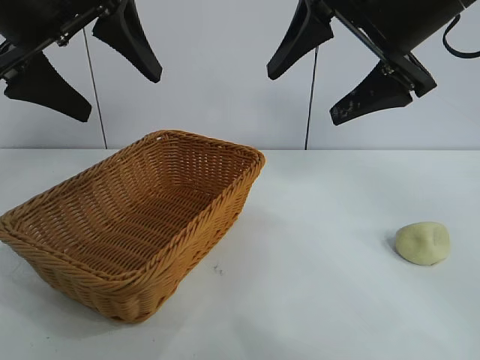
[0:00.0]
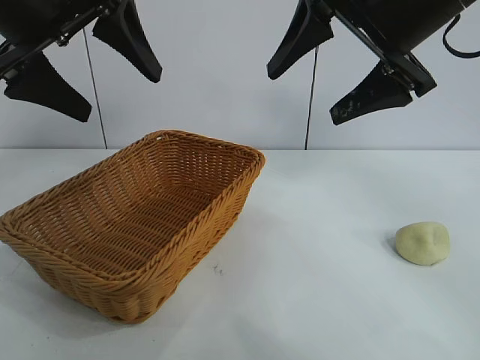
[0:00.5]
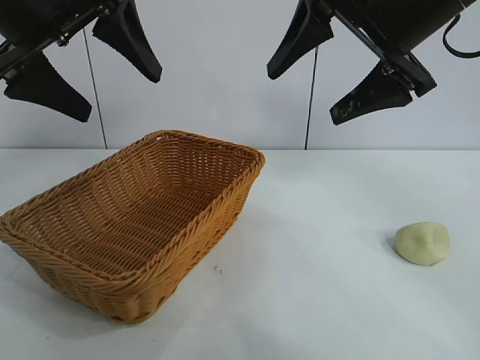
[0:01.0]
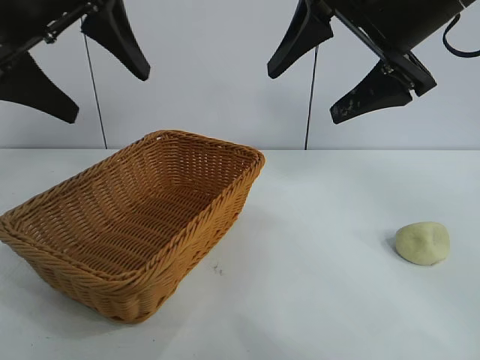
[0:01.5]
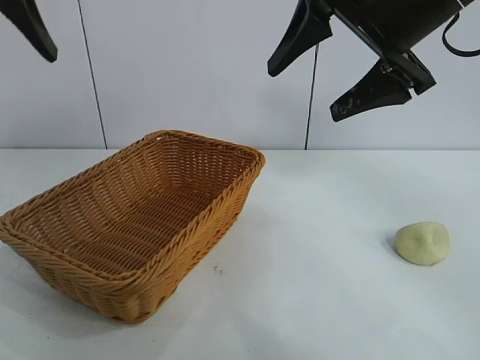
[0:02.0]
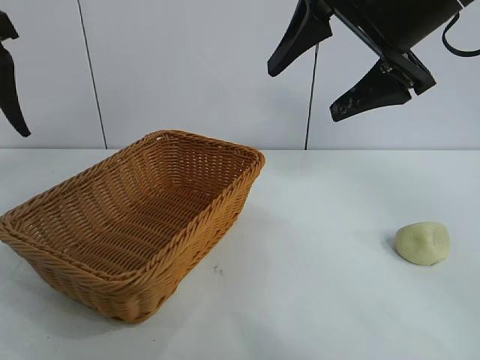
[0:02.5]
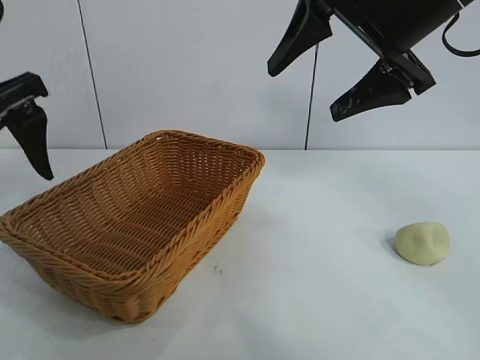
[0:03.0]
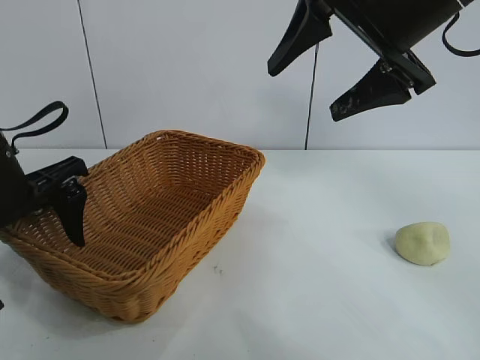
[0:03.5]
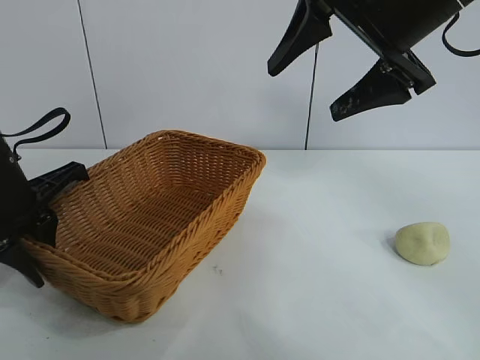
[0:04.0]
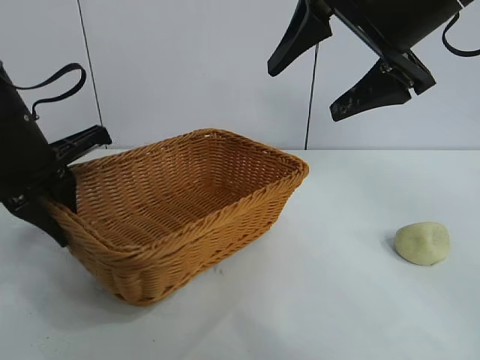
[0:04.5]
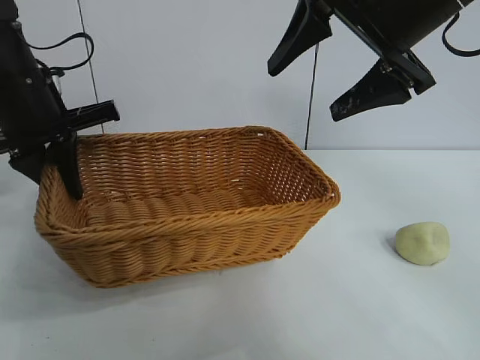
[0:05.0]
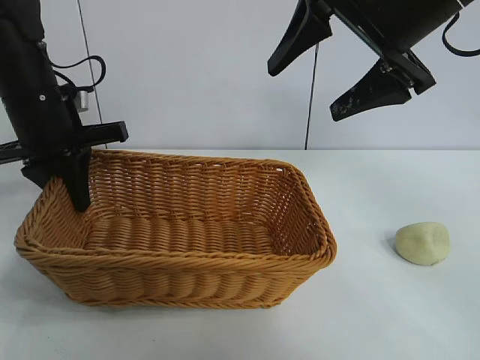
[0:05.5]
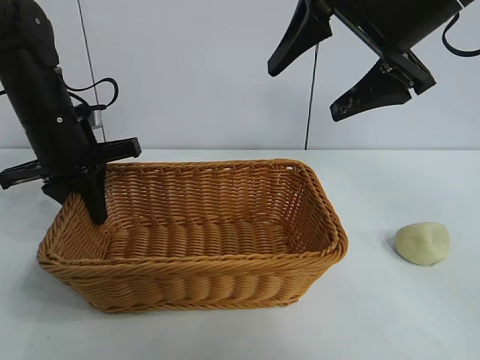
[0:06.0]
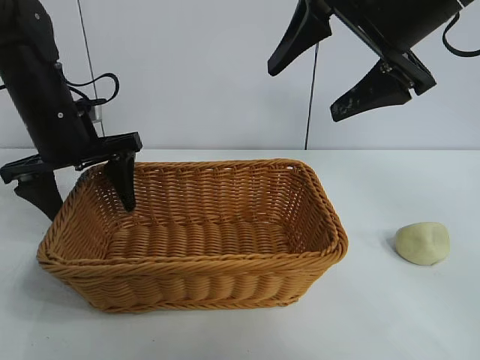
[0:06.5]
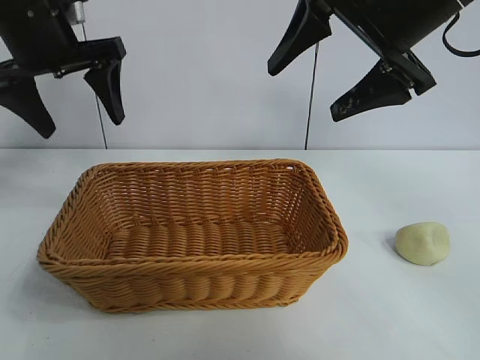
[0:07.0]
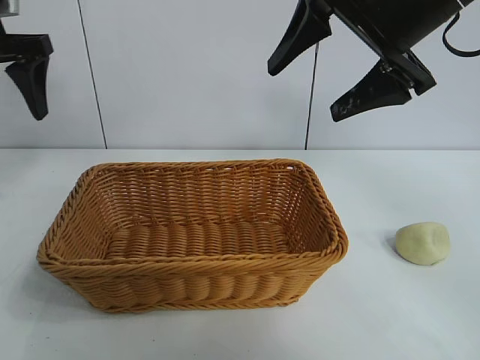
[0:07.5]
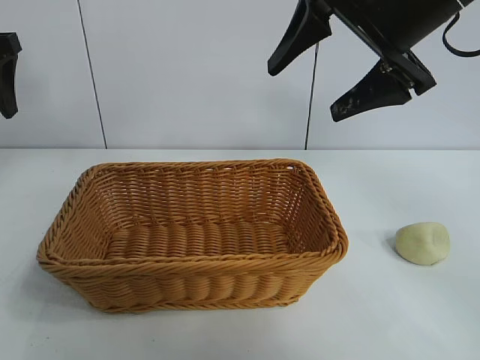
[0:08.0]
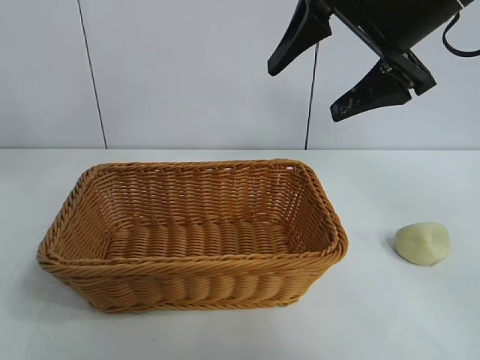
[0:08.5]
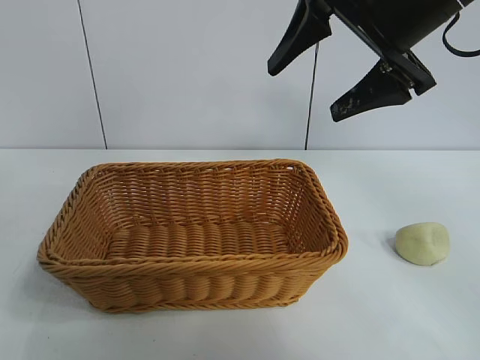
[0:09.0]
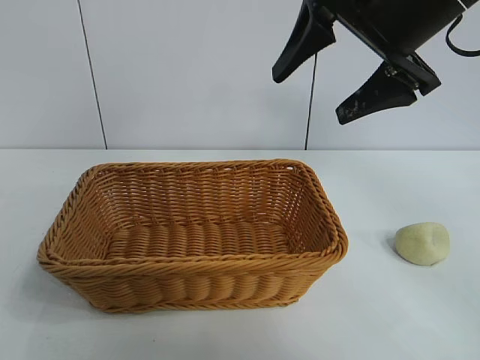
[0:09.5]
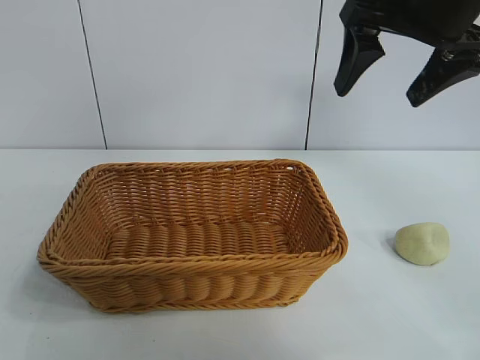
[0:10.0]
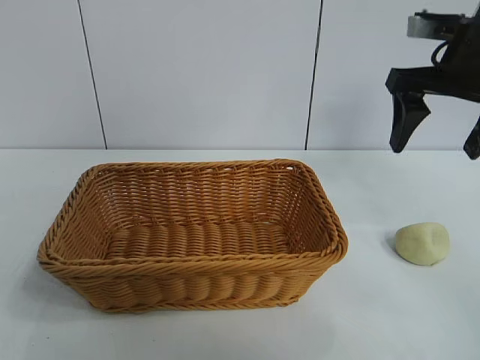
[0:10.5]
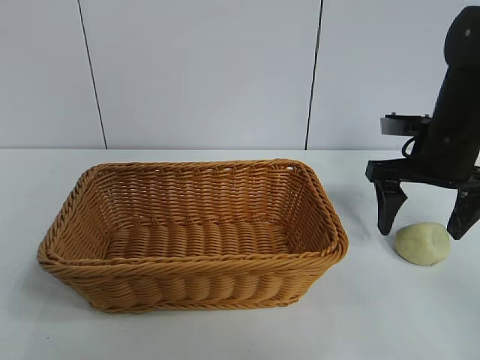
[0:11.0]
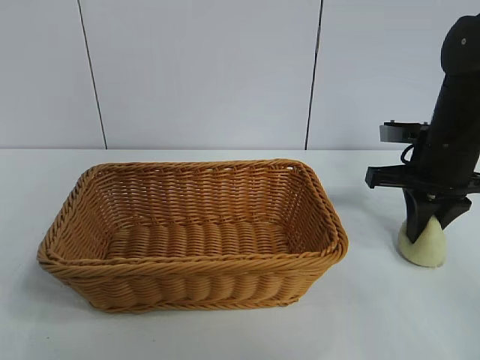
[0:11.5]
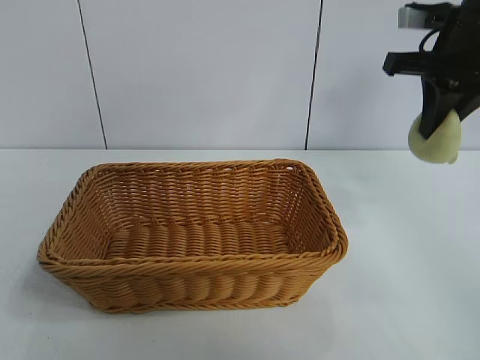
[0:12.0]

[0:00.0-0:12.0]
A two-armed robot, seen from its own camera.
Task of the whole recording: pick up the egg yolk pastry and put it into the basket.
Step, 0:01.5 to 0:04.0: Grasp the basket with left gripper.
Step, 0:04.5 to 0:06.0: Place the basket in the center of view with left gripper.
Step, 0:06.5 to 0:11.0: Grasp egg yolk pastry with right gripper.

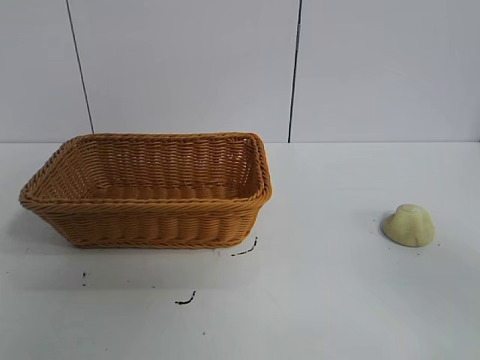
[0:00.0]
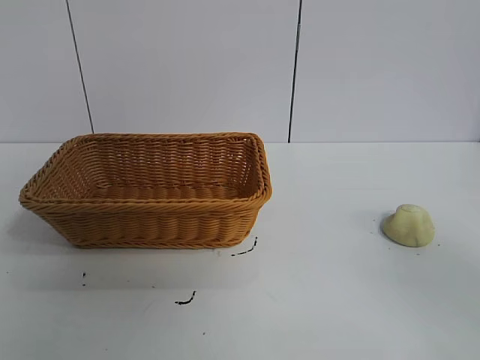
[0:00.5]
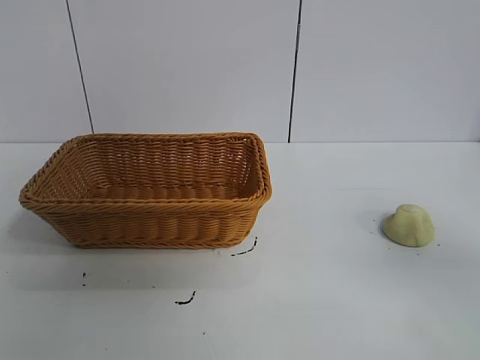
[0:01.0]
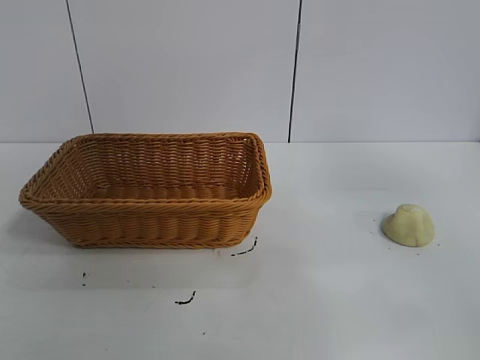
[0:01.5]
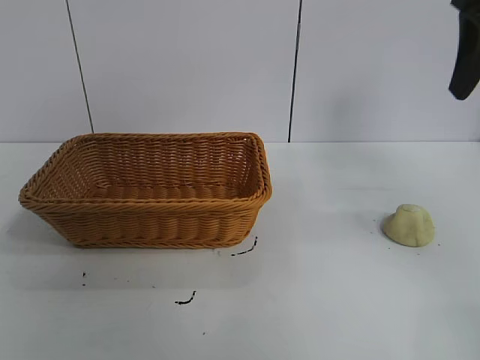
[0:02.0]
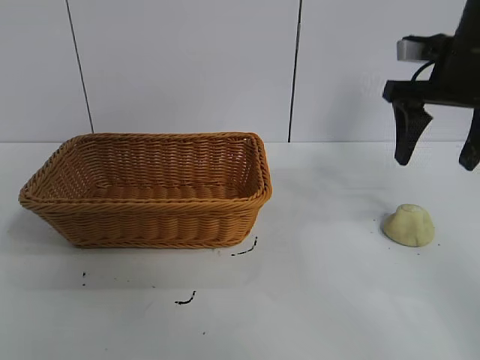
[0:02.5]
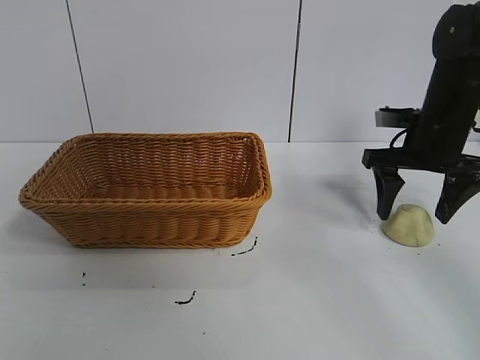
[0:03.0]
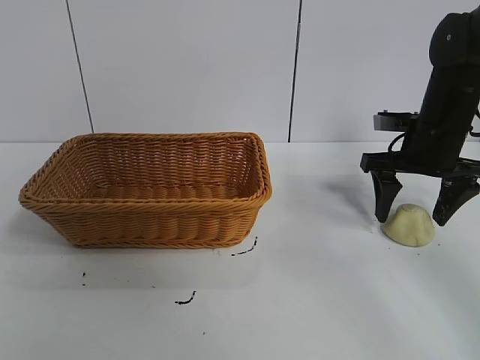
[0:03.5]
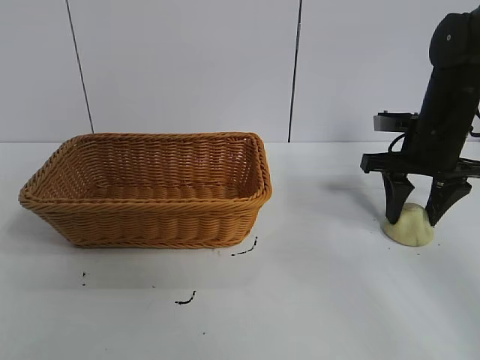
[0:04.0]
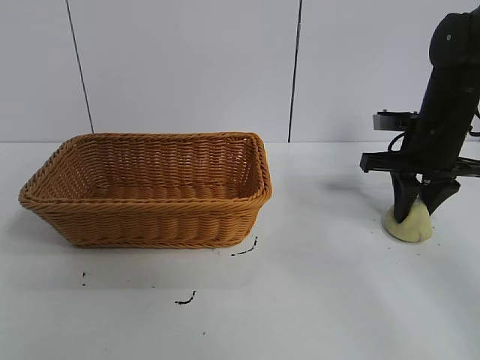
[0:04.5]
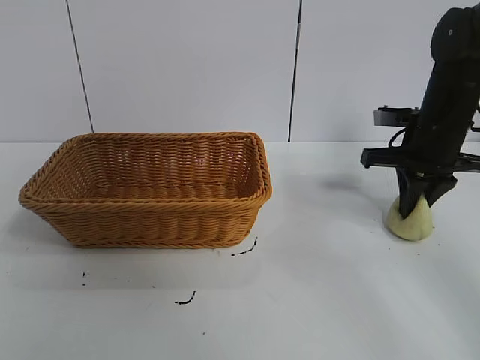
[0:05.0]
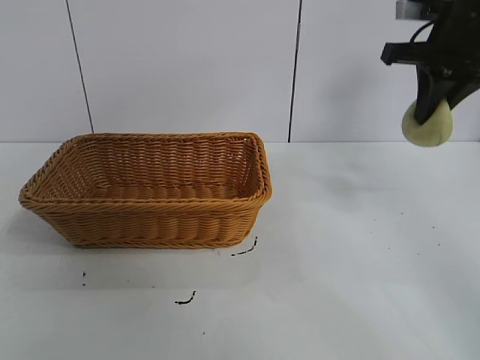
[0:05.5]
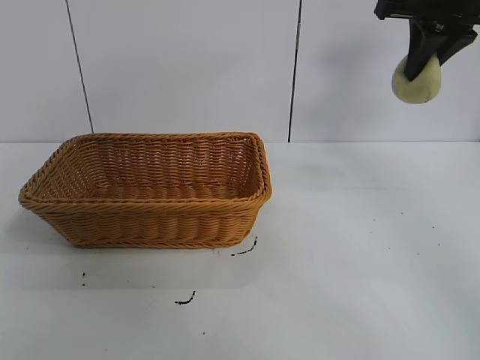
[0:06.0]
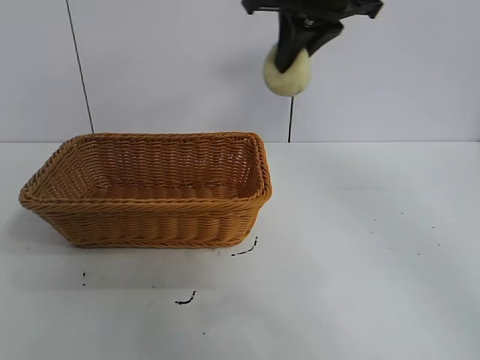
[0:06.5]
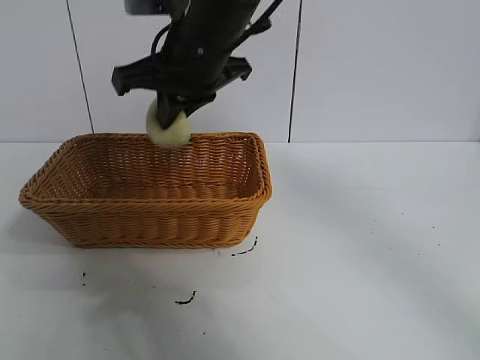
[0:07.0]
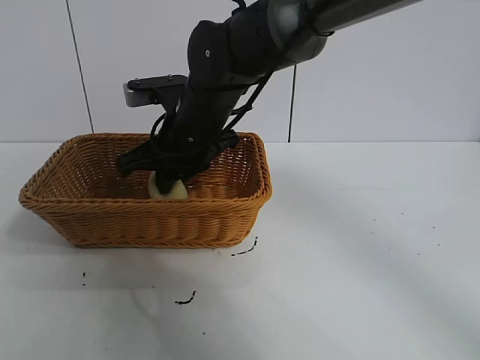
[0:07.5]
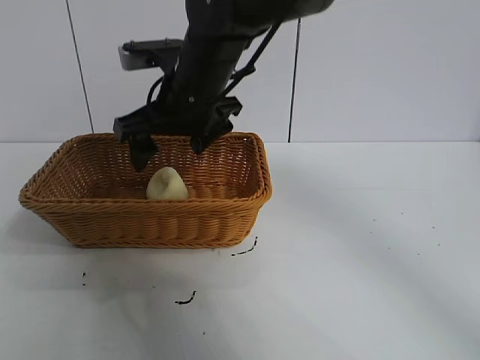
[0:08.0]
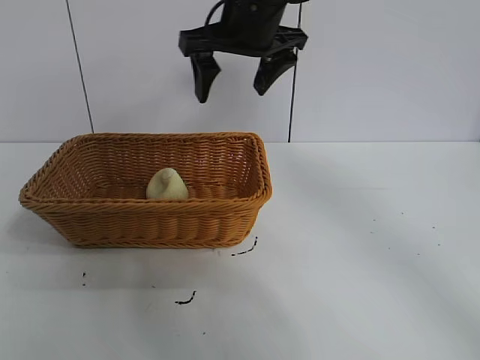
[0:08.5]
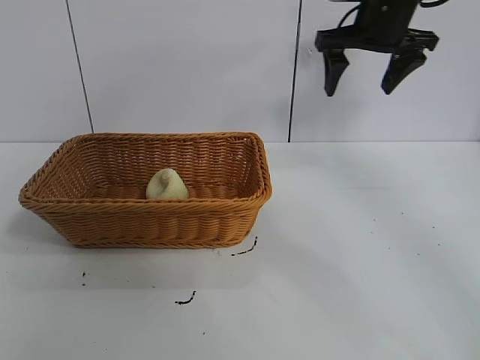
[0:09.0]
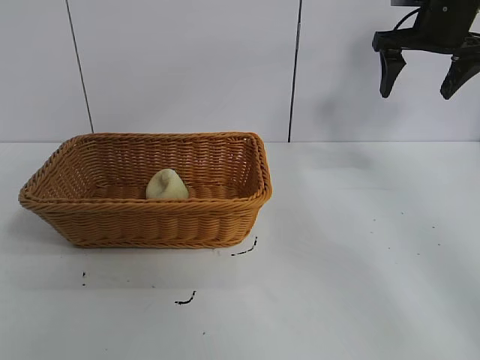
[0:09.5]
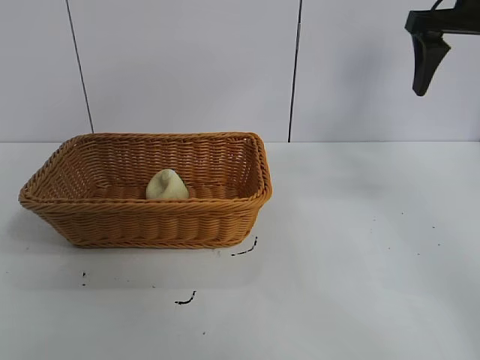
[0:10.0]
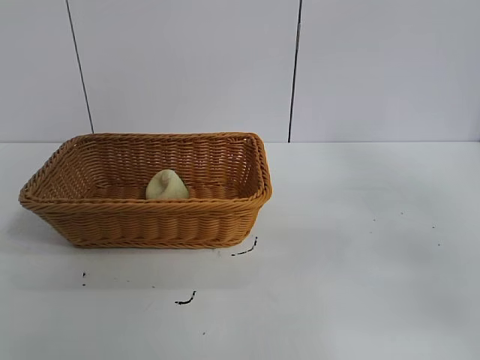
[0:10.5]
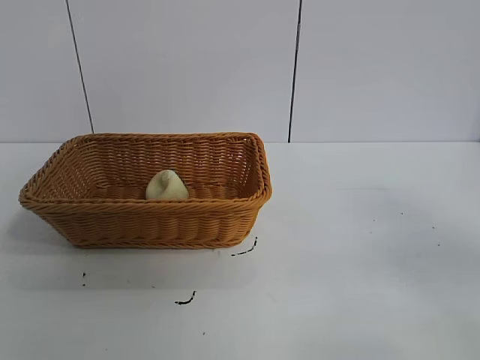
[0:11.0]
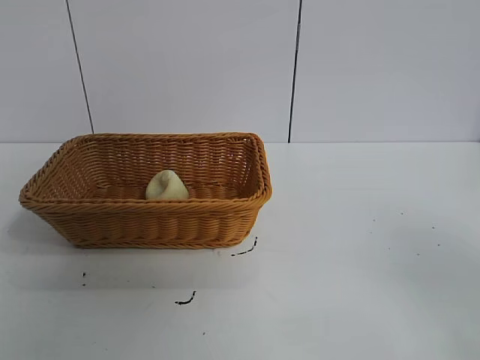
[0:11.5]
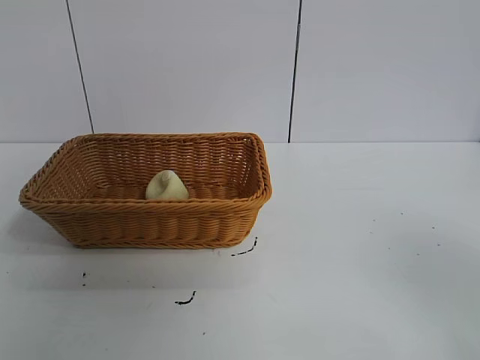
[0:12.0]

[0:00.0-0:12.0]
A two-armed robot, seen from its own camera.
Task of the whole recording: pick up the egg yolk pastry and put it into the basket.
Step, 0:01.0 to 0:04.0: Grasp egg yolk pastry with right gripper.
Step, 0:04.5 to 0:07.5: Place the egg yolk pastry in the basket with right gripper.
